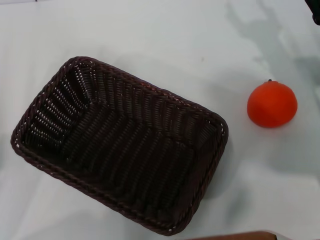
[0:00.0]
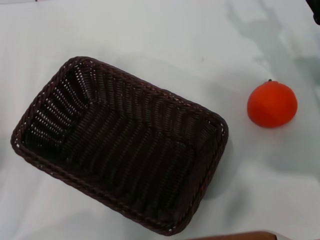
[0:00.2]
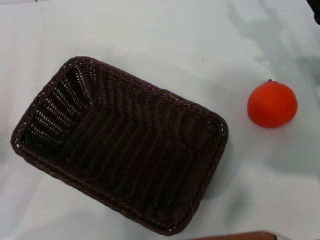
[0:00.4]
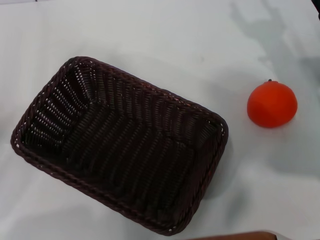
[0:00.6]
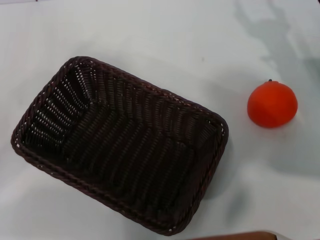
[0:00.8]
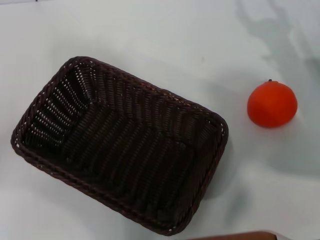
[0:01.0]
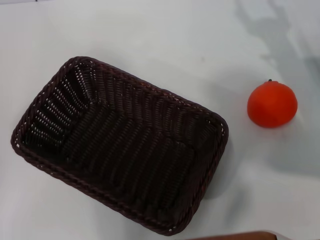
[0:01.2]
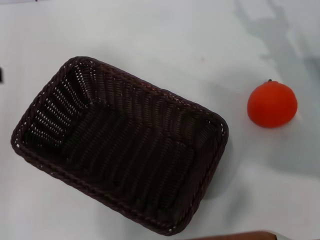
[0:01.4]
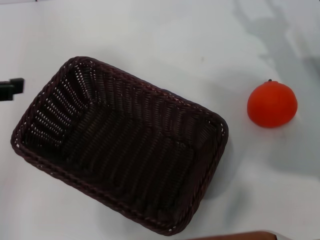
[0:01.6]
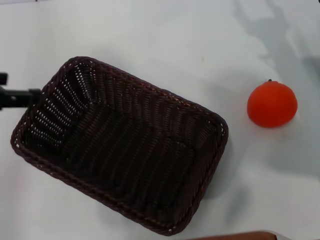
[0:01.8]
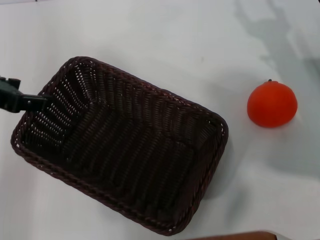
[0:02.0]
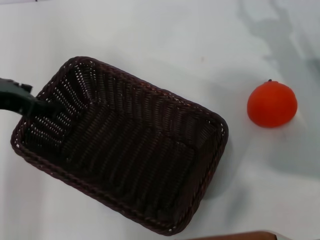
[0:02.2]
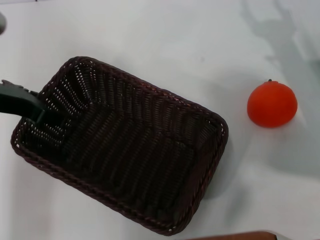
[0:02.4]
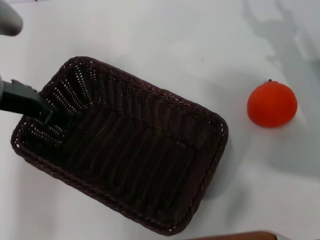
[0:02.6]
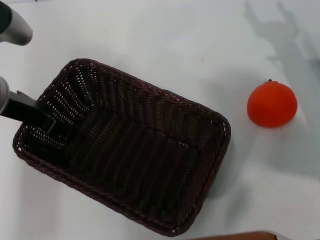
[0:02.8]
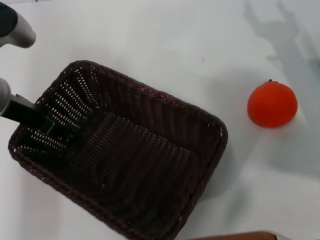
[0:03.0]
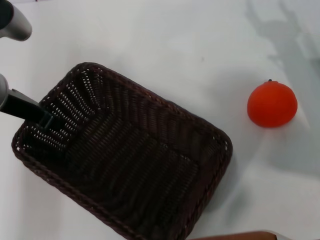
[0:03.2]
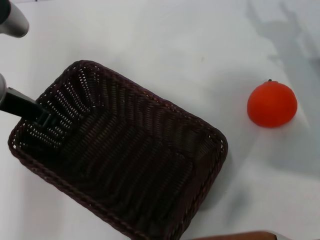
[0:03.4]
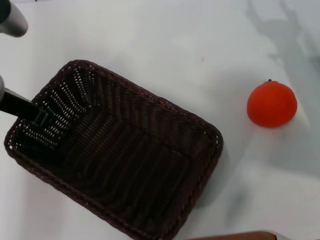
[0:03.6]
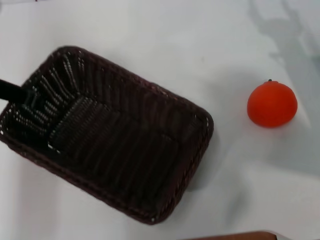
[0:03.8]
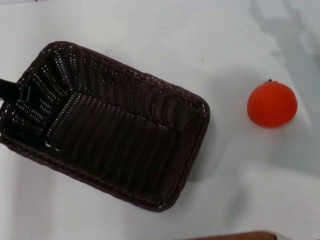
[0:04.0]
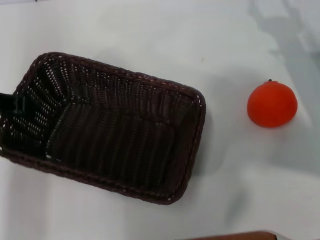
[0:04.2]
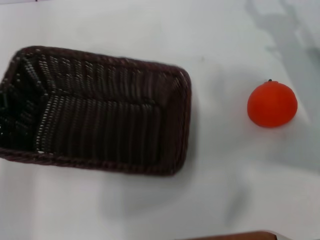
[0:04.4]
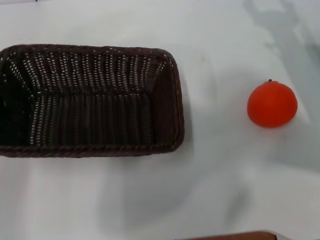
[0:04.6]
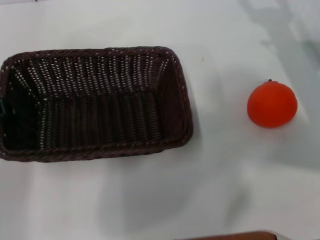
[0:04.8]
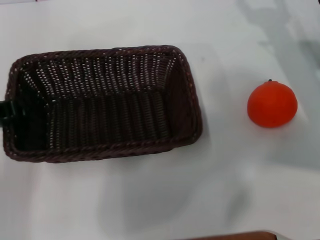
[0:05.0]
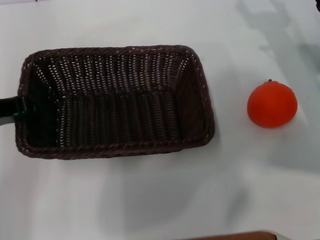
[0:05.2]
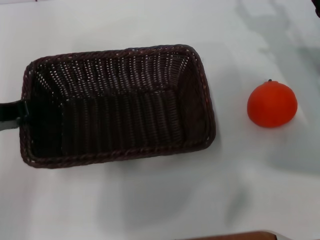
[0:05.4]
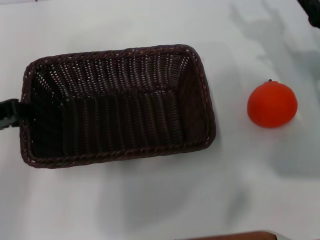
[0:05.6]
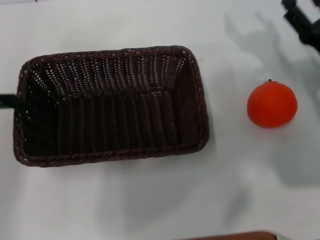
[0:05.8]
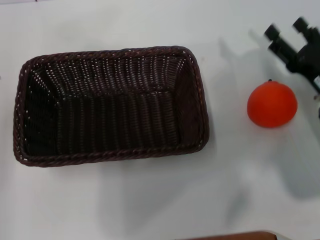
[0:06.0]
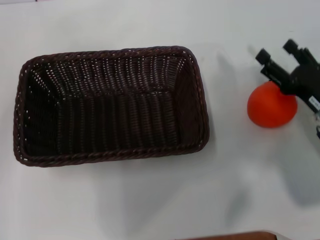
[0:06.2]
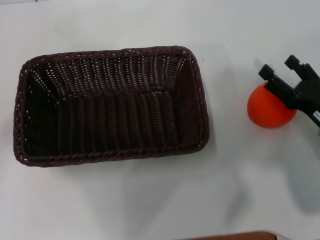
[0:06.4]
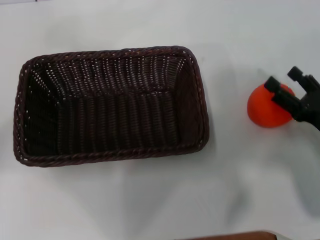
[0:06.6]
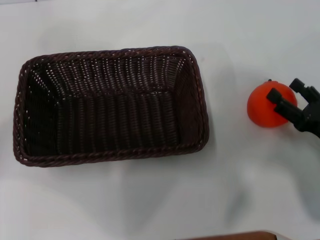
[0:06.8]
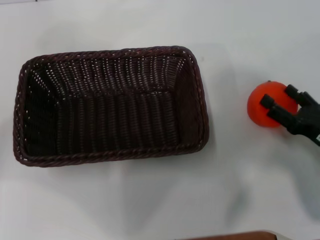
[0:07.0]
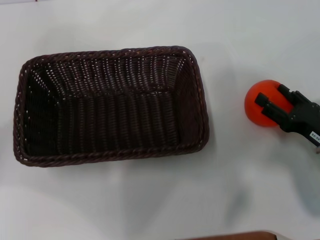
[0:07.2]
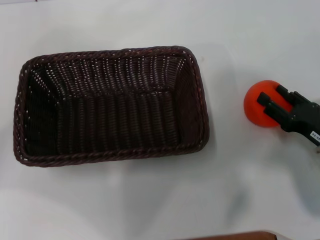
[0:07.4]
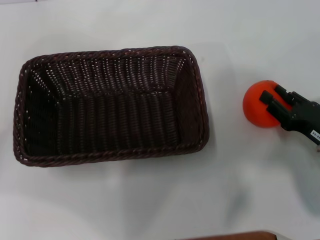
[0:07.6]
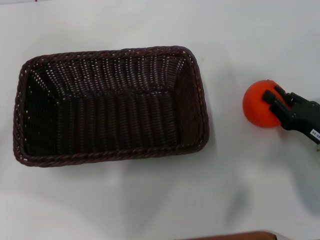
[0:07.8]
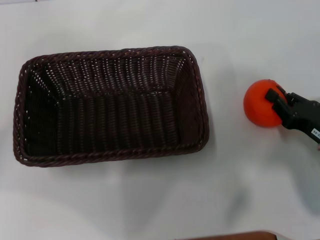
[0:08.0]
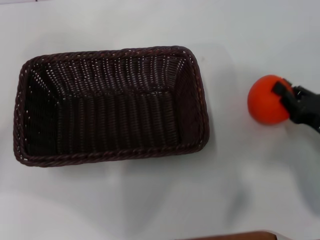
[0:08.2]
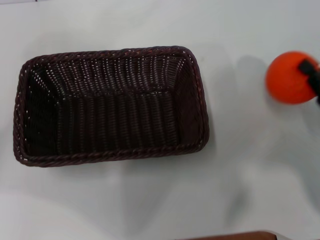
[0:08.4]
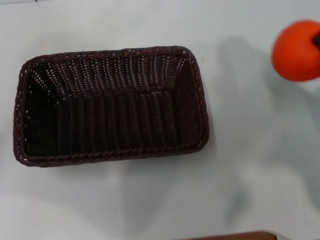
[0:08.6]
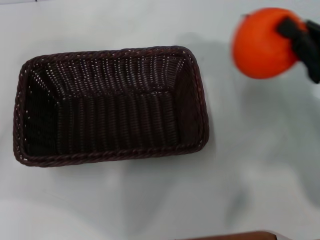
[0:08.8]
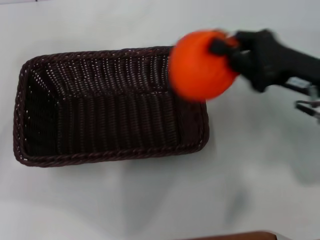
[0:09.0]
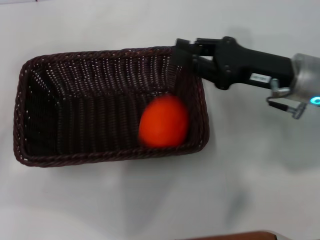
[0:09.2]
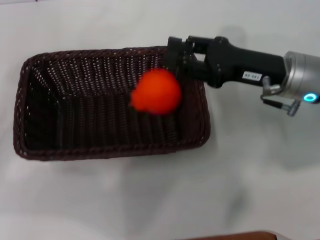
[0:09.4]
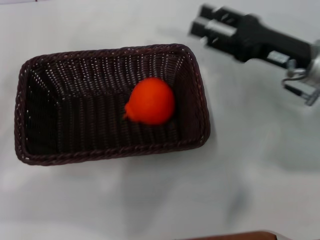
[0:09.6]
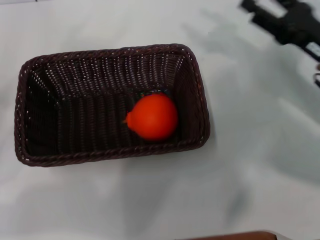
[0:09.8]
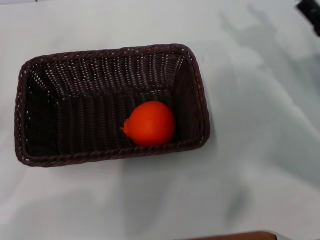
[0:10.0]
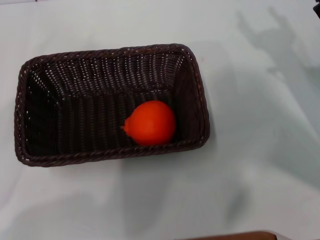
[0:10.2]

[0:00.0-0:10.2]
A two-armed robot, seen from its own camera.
Task of the whole recording: the left gripper pick up the black basket and place it horizontally in the middle of the table, the right gripper pick up the orange and place it into the black basket.
Step, 0:00.0 to 0:03.8: Pick up the dark basket with the left gripper.
Step, 0:04.0 to 0:05.6: Place the dark basket in the center of view with the left gripper.
Step, 0:05.8 to 0:08.2: Pick up the orange with the right gripper.
Step, 0:08.4 to 0:09.2: Place the orange into the dark basket with the right gripper.
0:01.4 to 0:03.0: The left gripper goes about 15 cm to the right, forward and downward.
0:03.0 to 0:04.4: The left gripper is displaced to the left by about 5 cm, and closes its fingers.
0:04.4 to 0:05.8: The left gripper opens.
0:05.8 to 0:07.2: The left gripper shifts about 5 cm to the left, and opens; the right gripper moves backward, about 5 cm.
0:07.2 to 0:08.8: The right gripper is displaced upward by roughly 10 cm, and closes.
0:08.8 to 0:10.2: The right gripper goes to the left and returns, roughly 10 cm each way, and opens, while the left gripper goes roughly 10 cm downward.
